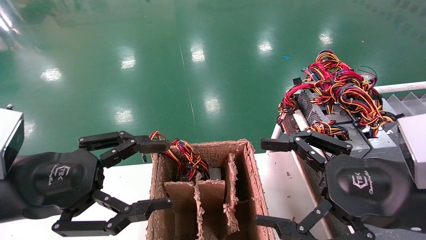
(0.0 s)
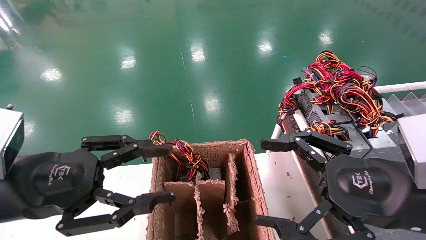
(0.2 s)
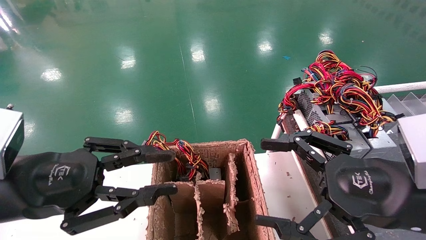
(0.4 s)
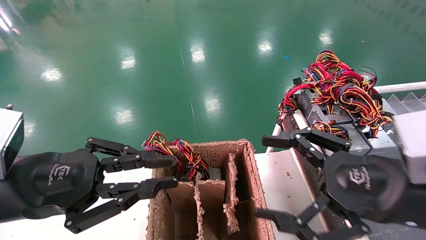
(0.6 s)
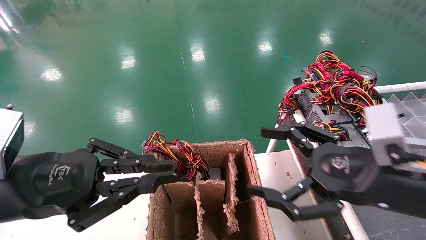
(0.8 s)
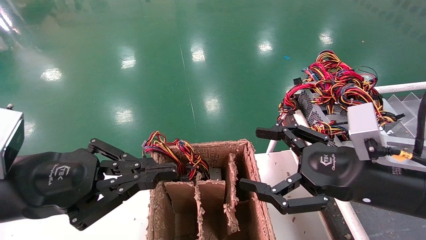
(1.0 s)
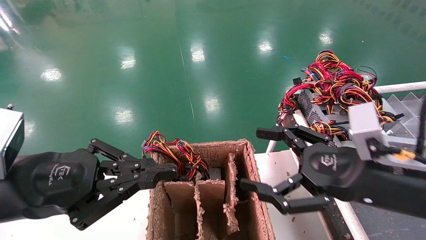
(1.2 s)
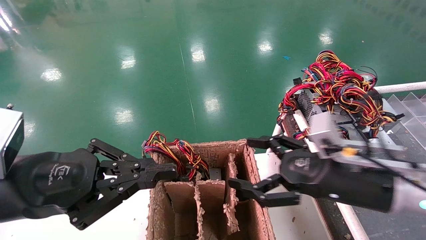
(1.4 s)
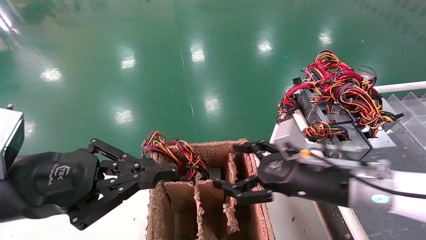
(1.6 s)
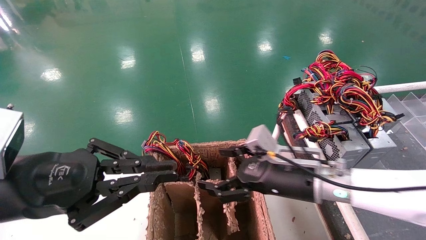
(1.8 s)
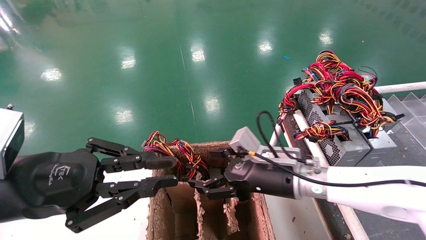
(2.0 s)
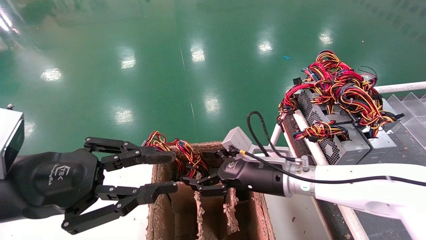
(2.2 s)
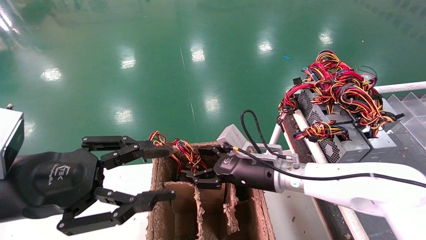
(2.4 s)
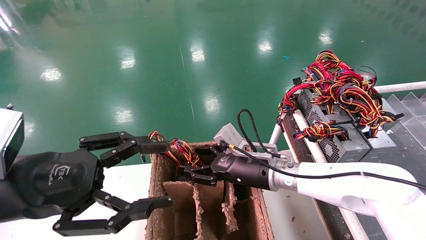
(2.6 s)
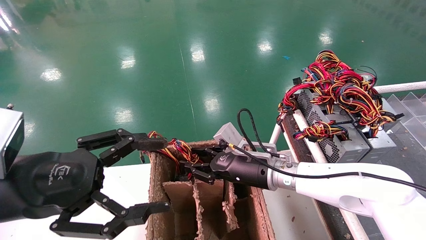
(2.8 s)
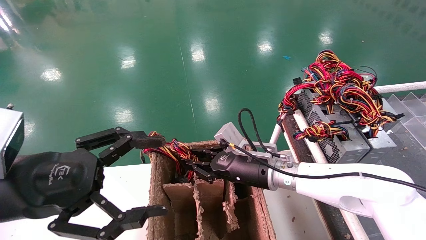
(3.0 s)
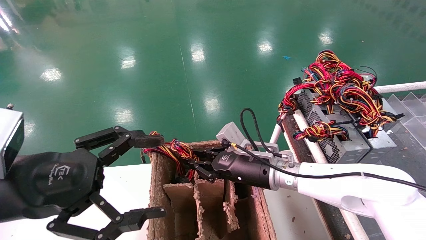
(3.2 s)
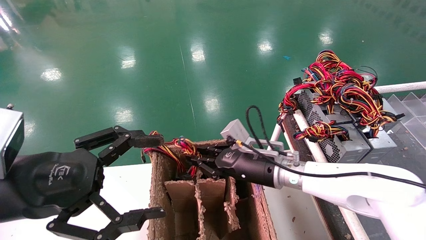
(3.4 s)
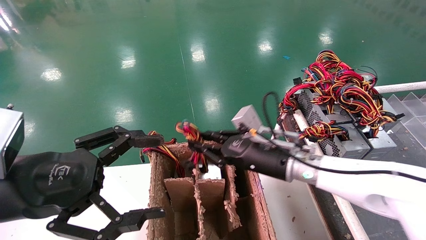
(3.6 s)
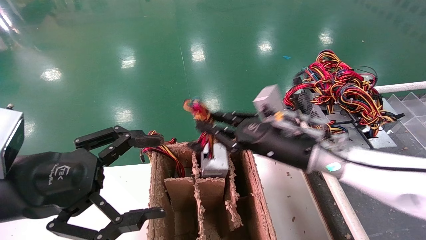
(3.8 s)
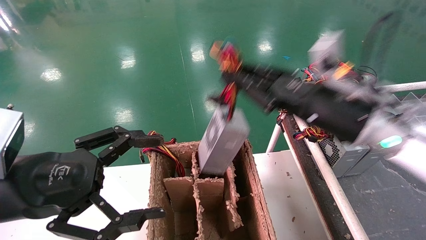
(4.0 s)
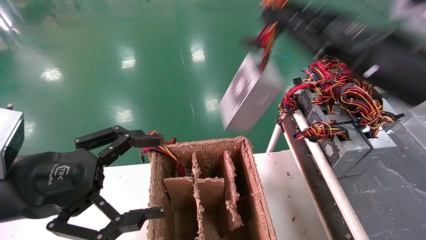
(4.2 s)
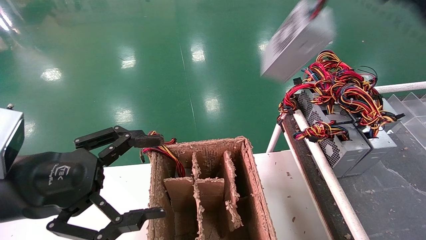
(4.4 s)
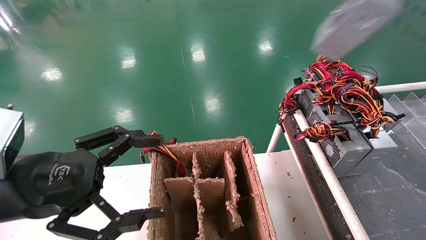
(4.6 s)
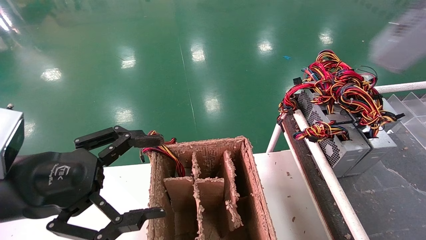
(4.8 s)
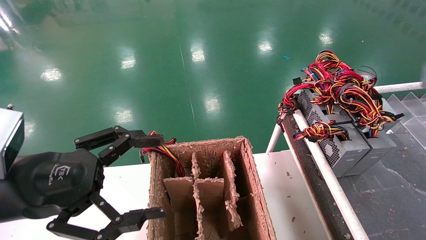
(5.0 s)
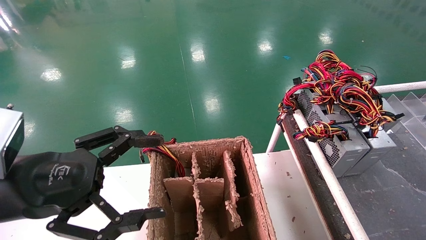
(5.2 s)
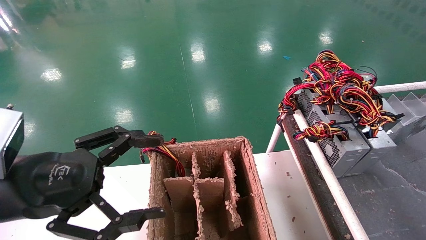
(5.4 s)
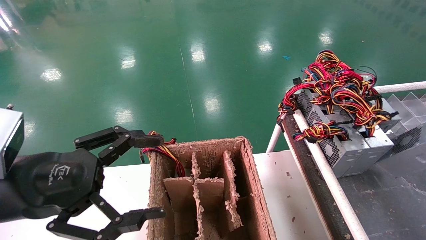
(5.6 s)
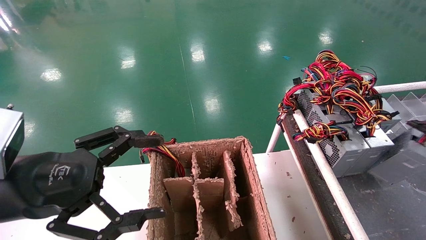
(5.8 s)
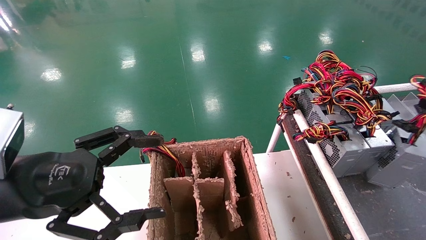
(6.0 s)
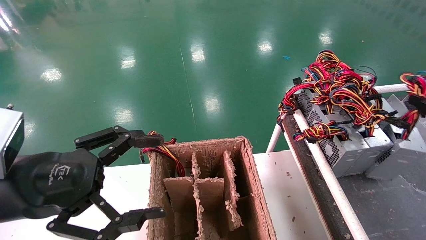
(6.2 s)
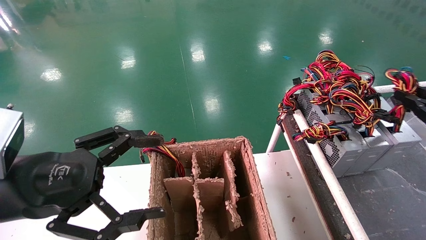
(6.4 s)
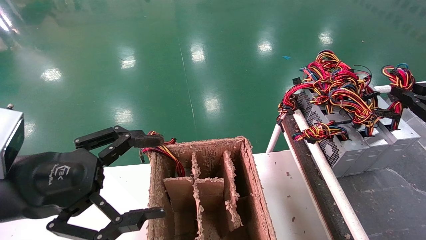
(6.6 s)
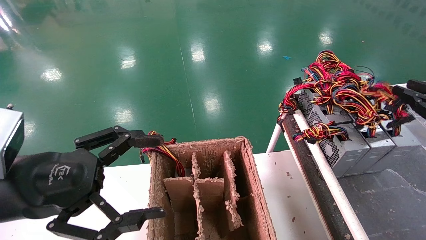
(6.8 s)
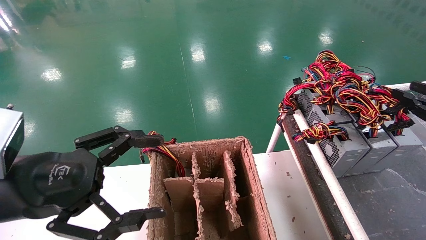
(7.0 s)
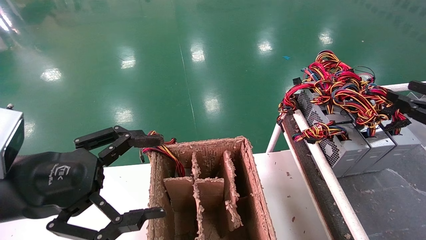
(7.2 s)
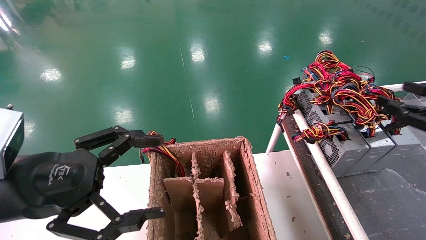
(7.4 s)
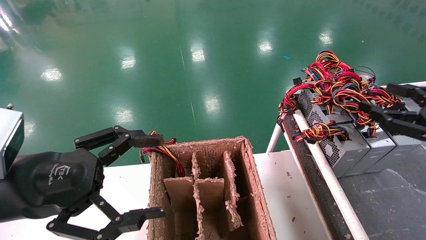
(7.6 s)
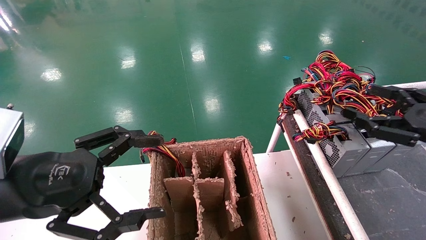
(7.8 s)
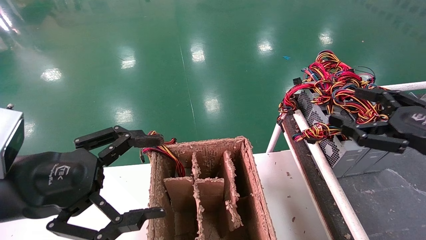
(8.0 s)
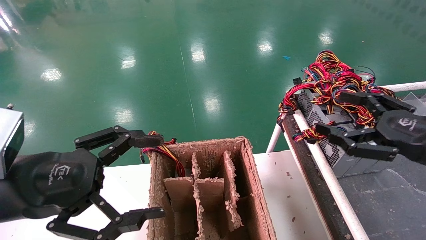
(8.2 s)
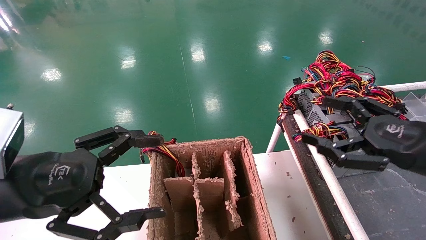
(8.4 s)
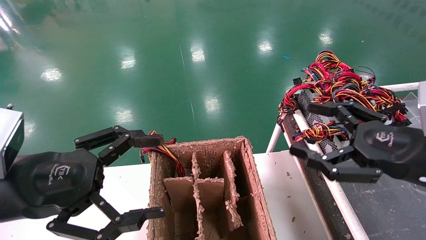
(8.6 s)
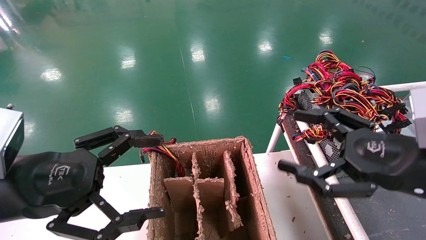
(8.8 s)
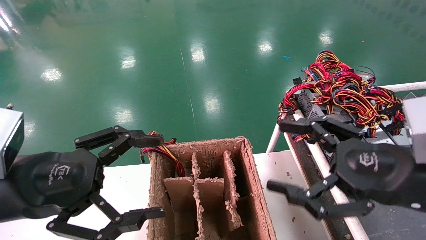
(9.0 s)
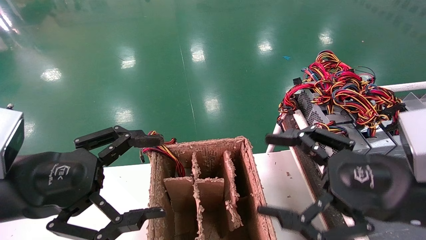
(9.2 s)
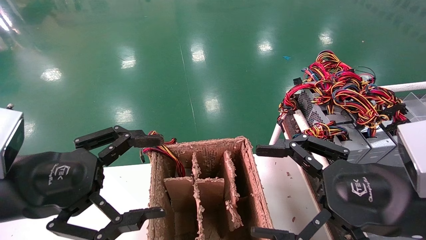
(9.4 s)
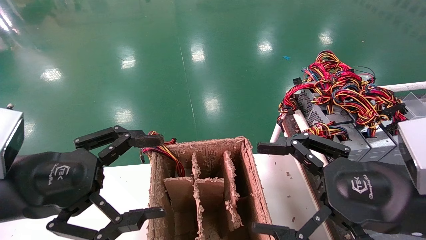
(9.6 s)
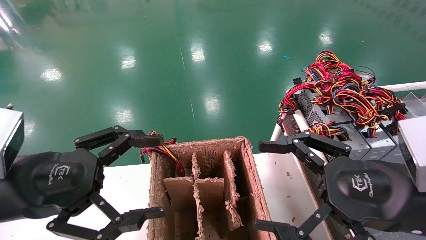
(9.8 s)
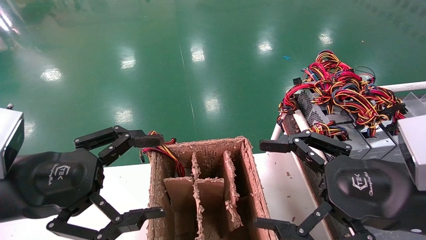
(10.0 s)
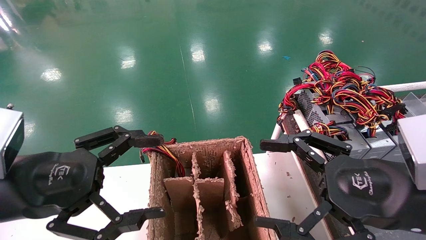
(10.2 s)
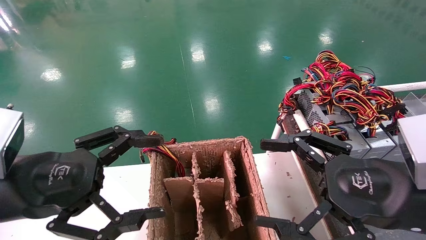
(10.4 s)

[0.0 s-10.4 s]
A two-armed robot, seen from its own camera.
Step, 1.0 to 3.2 s: Grab and lift the power supply from the large box.
Step, 3.4 to 7.6 s: Place the power supply on the operating table.
0.0 to 1.4 s: The right gripper goes approximately 10 cm forward, while the left gripper closes its fingers.
1.4 to 3.0 s: The right gripper goes roughly 20 cm forward, to the left and downward, and closes; the left gripper opens.
3.0 to 4.4 s: The right gripper goes approximately 35 cm upward, to the right and backward.
4.4 to 6.0 s: The right gripper travels to the right and downward by approximately 25 cm.
6.0 to 7.4 s: The right gripper moves roughly 5 cm, and opens up.
7.4 to 9.0 s: The right gripper heads to the left, covering some 15 cm, and opens.
9.0 to 10.4 s: The grippers stay close to where they were, moving slightly.
